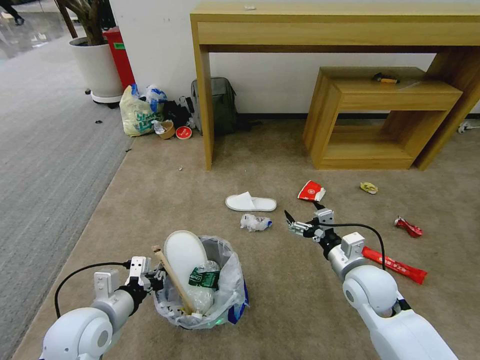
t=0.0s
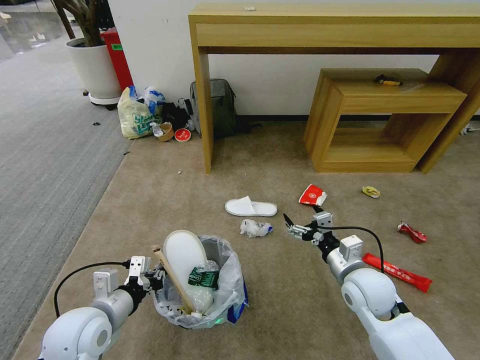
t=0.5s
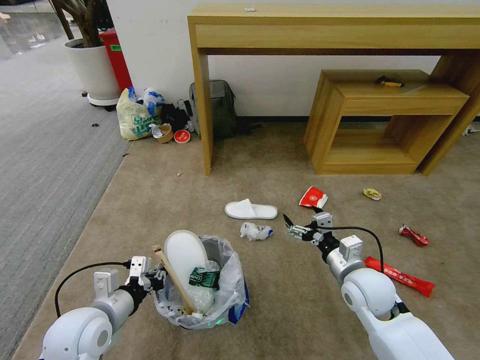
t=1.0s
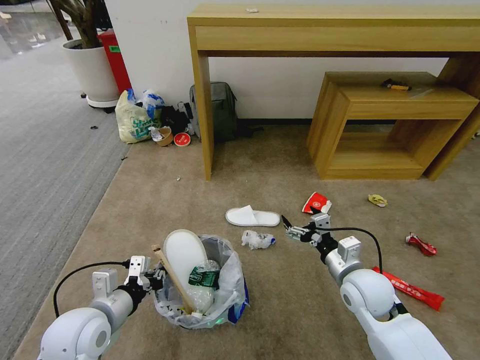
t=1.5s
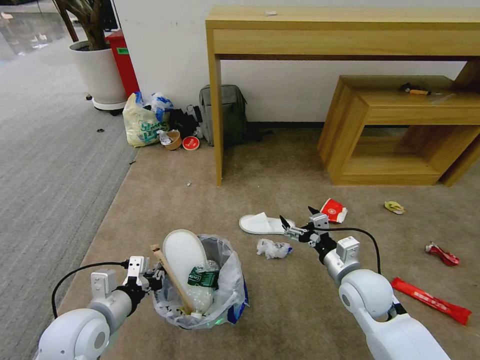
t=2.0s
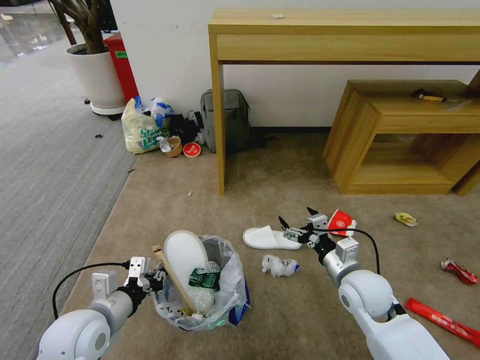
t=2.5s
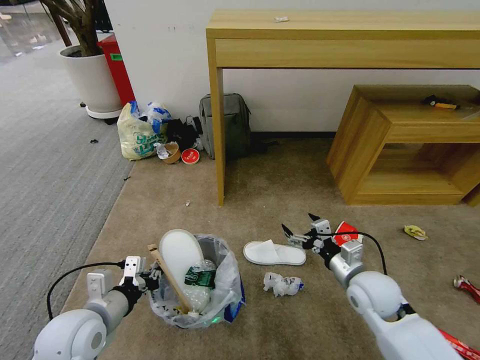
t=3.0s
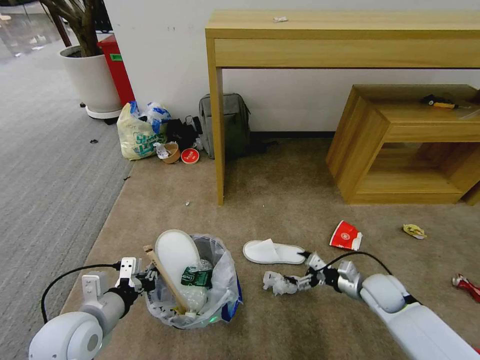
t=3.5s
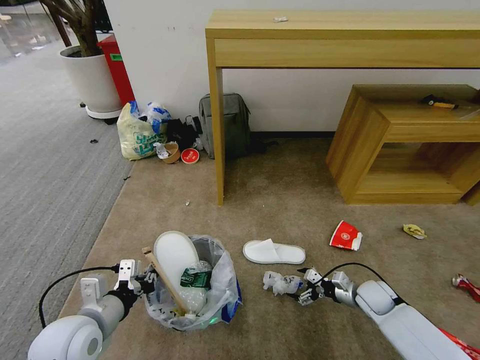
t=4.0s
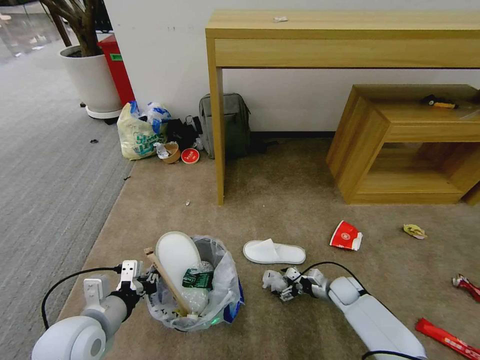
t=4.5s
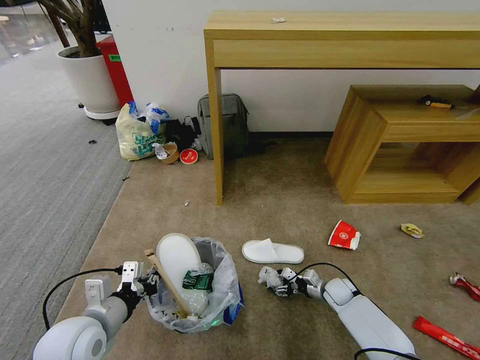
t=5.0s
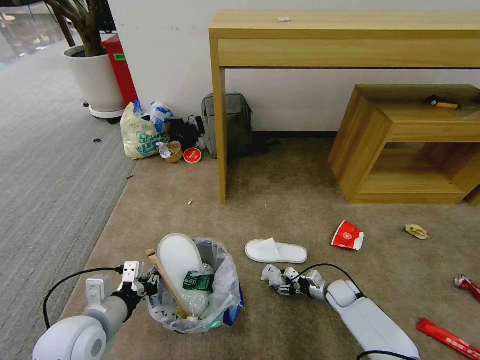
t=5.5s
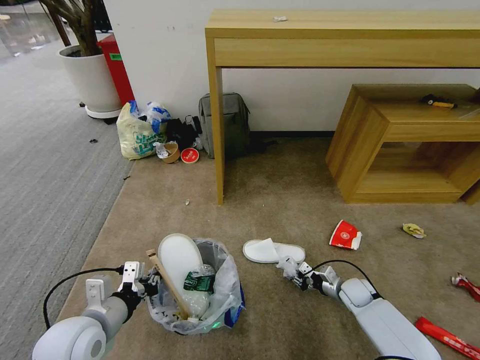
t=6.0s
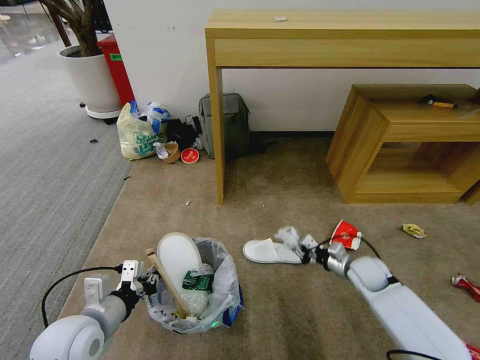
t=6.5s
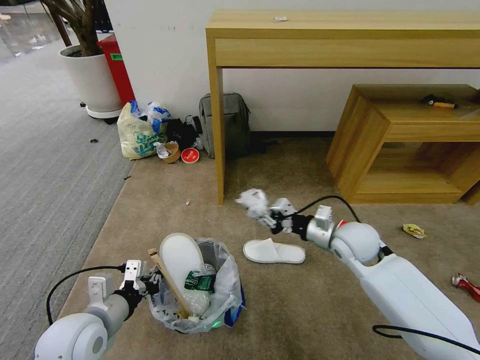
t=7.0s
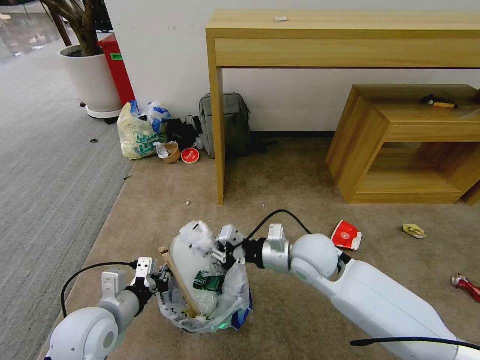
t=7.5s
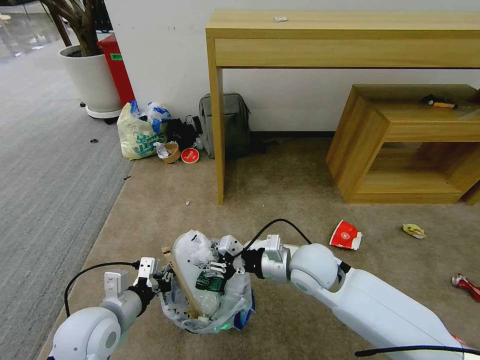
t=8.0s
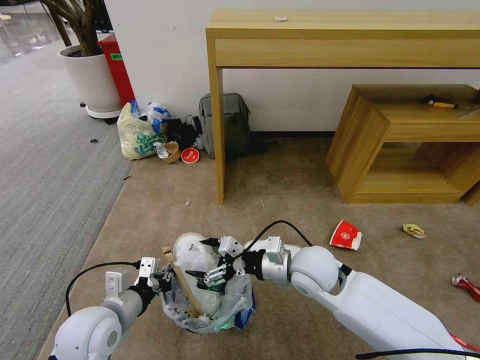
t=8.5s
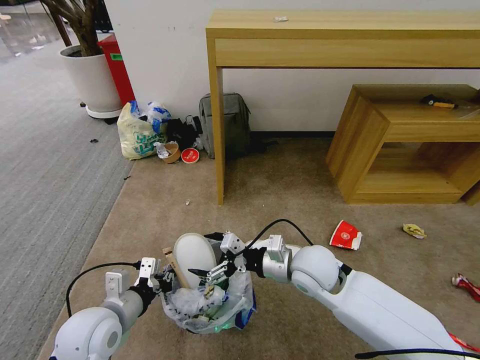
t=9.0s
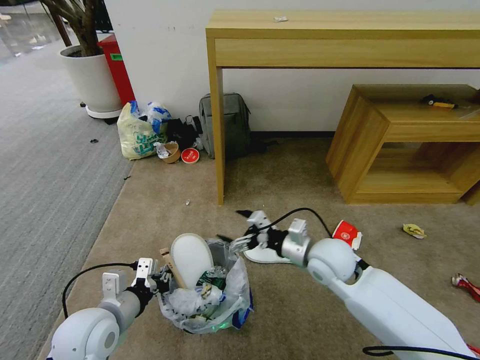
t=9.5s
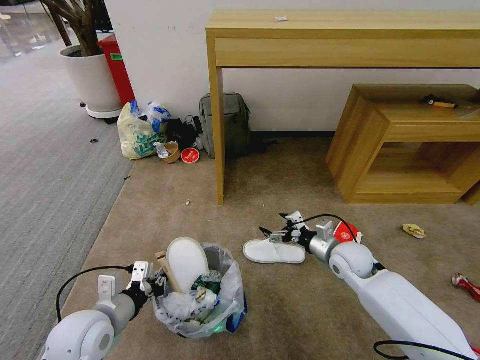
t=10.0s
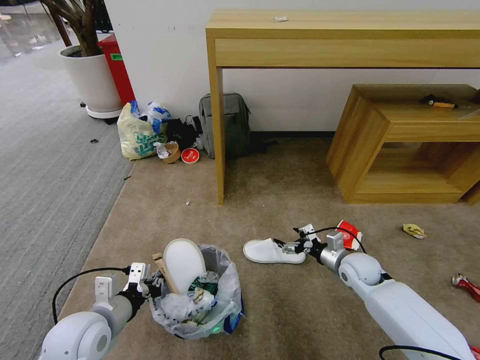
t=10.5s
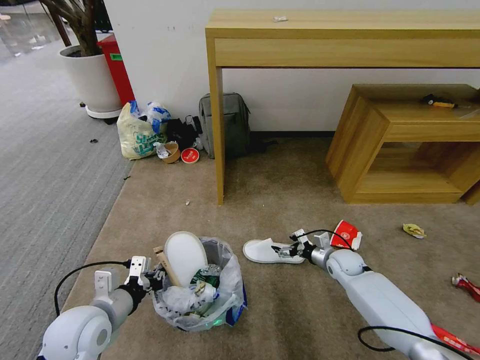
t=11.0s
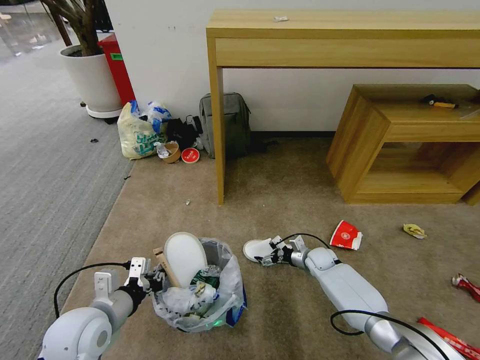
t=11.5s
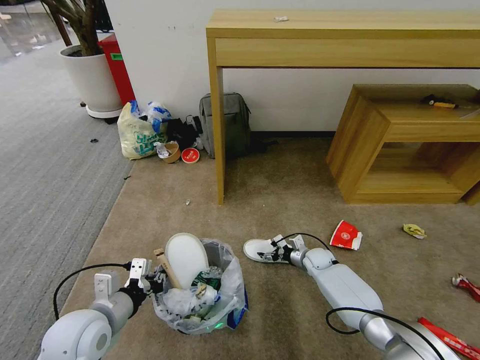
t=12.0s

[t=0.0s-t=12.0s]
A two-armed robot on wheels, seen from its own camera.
Task of the whole recording: Pick up the trash bin and place the garbage on the floor into it.
t=2.0s to t=4.0s: The right gripper moves downward and to the right, some 20 cm.
t=4.0s to t=6.0s: The right gripper closes up.
t=6.0s to t=8.0s: The right gripper goes some 35 cm upward and to the left.
t=8.0s to t=10.0s: The right gripper goes roughly 15 cm to the right, downward and forward, and opens its fingers.
t=10.0s to t=12.0s: The right gripper travels downward and forward by roughly 20 cm.

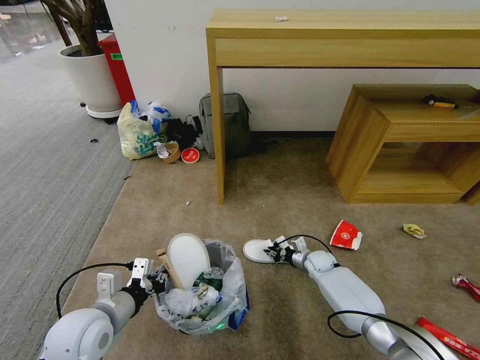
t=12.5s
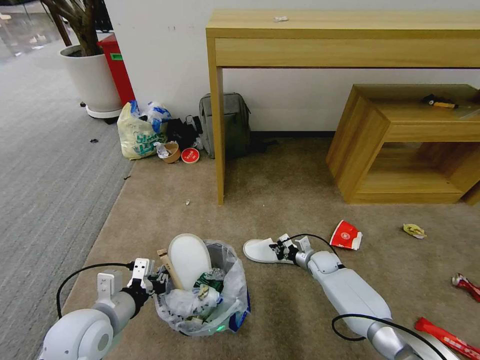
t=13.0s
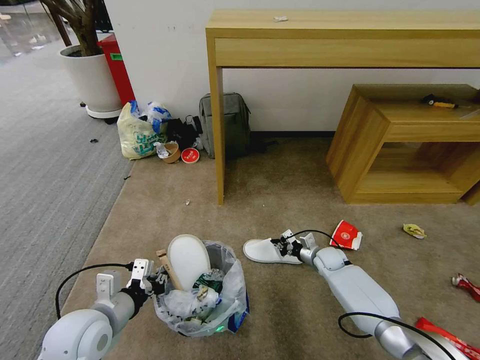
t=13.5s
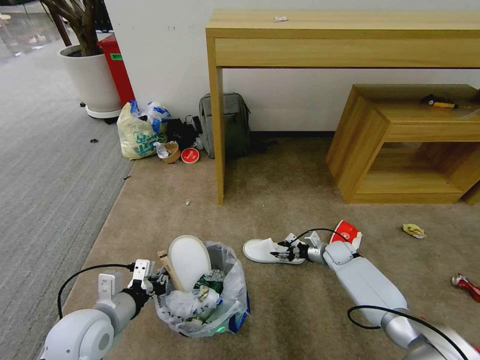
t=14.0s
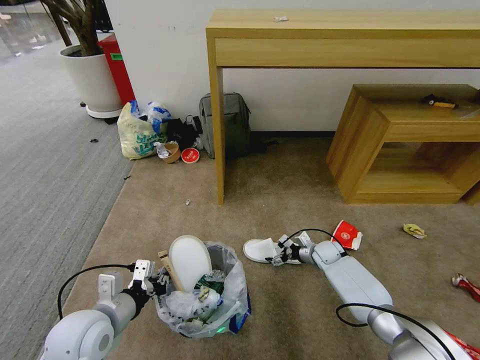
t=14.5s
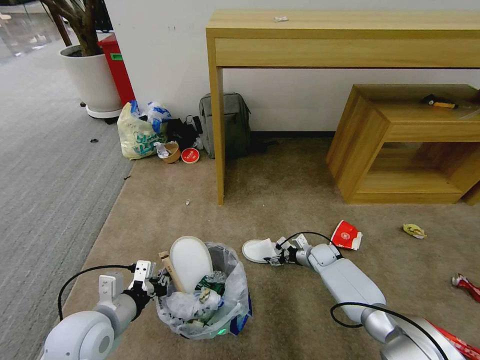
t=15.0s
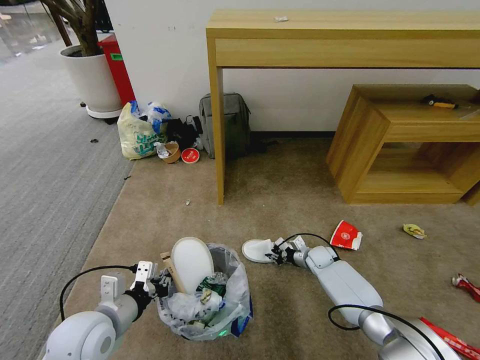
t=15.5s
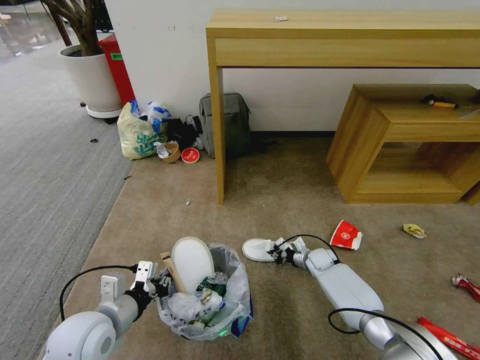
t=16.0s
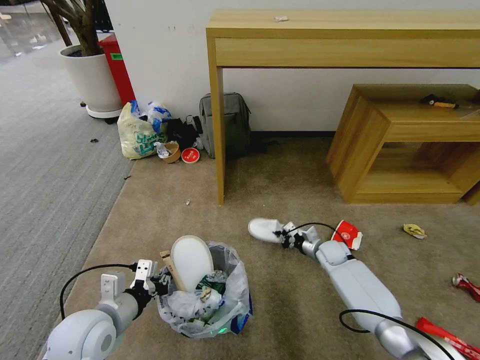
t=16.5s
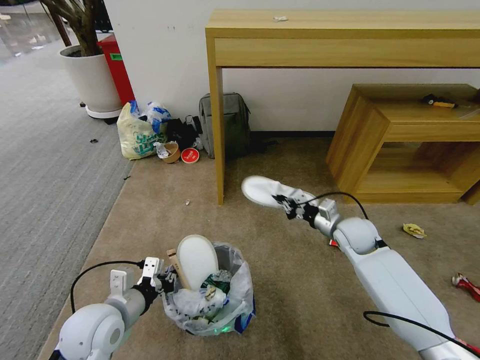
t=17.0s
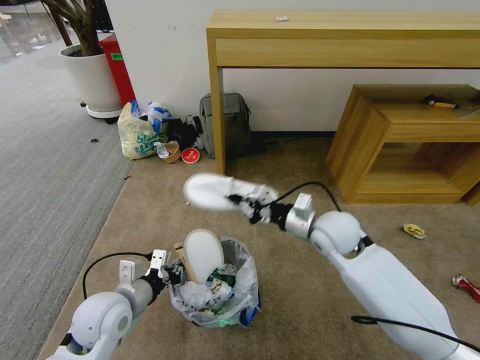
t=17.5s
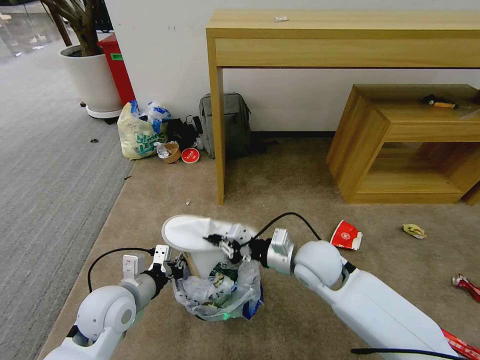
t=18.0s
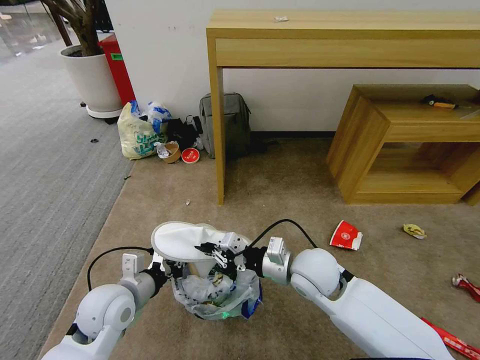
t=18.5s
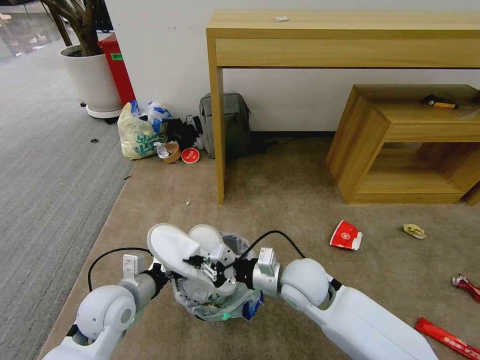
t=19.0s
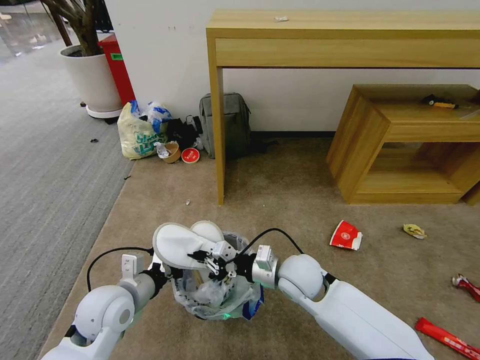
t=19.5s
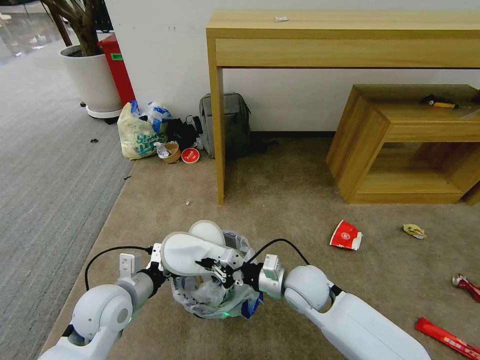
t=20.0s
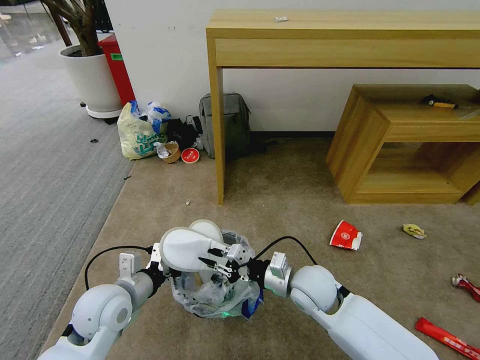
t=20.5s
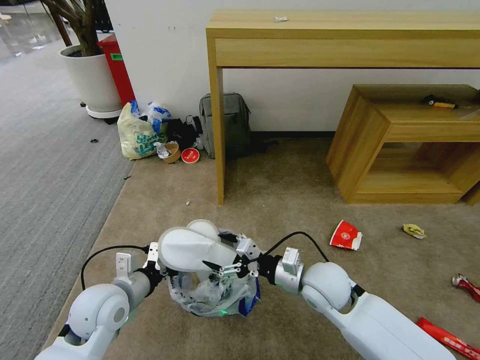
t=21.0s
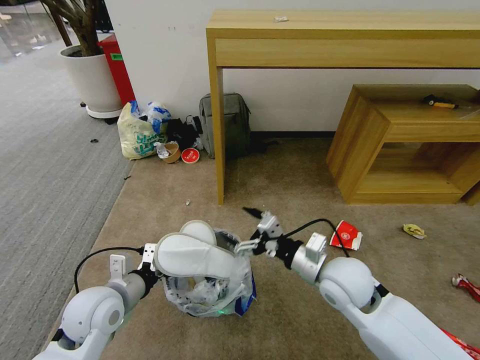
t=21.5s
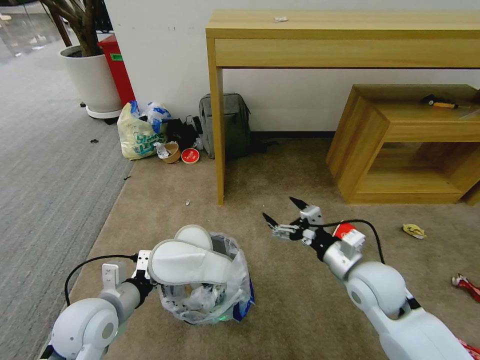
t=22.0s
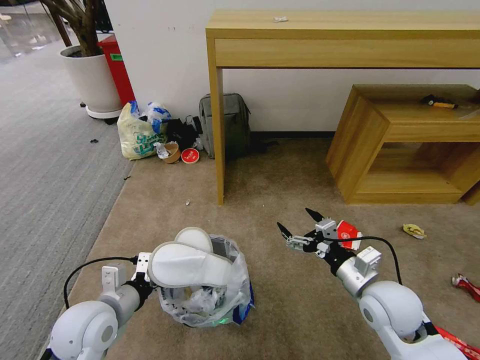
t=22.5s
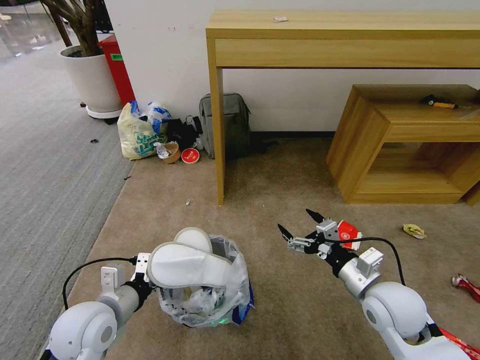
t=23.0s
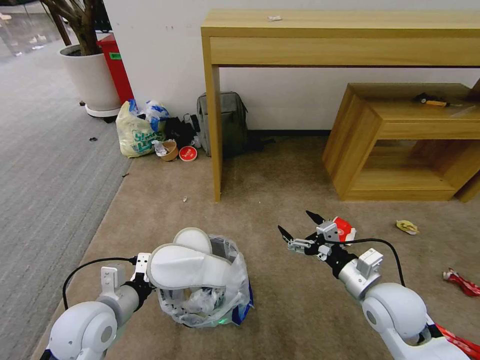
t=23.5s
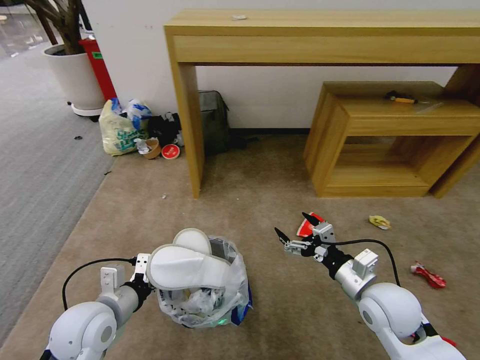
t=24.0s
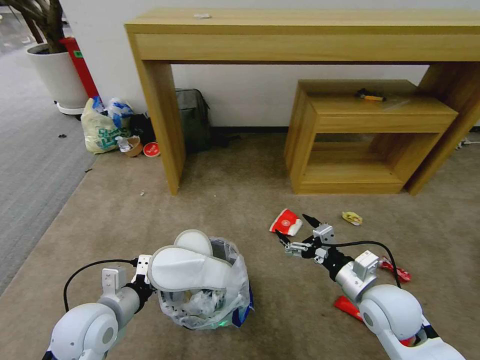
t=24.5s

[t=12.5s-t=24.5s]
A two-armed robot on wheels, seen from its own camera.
Task of the whole recording: Pick up the trash bin and place the garbage on the floor into it.
t=12.5s to t=14.5s: The right gripper opens.
t=14.5s to t=16.5s: The right gripper closes up.
t=16.5s to t=18.5s: The left gripper goes about 5 cm forward. Meanwhile the right gripper goes about 30 cm upward, backward and to the left.
t=18.5s to t=20.5s: The right gripper moves downward, roughly 5 cm.
t=20.5s to t=22.5s: The right gripper is displaced to the right by about 15 cm, and opens.

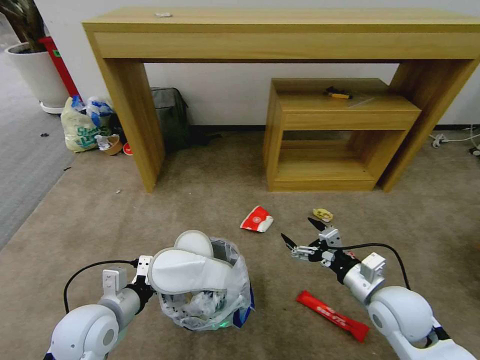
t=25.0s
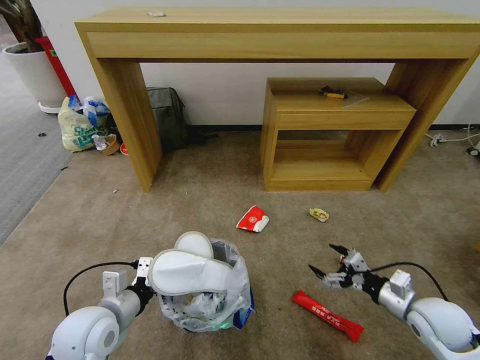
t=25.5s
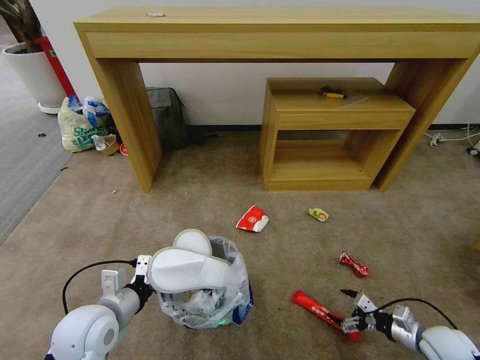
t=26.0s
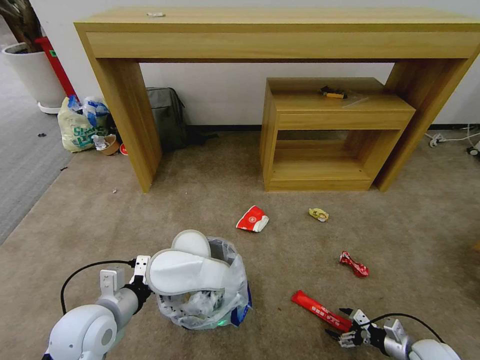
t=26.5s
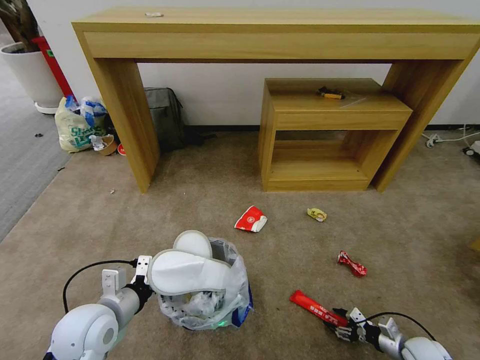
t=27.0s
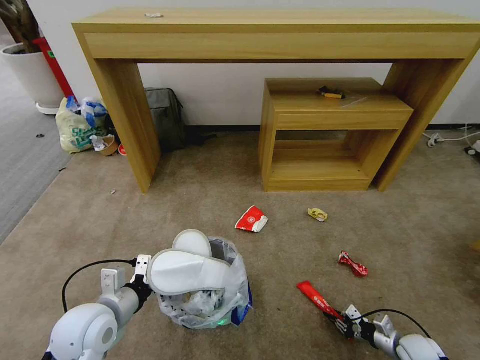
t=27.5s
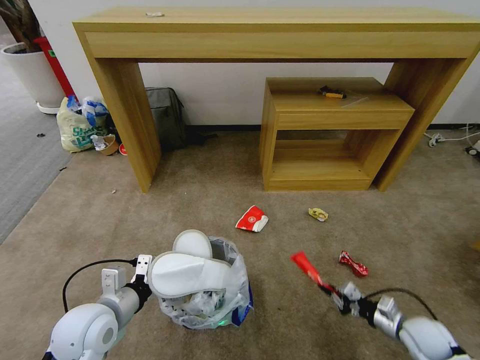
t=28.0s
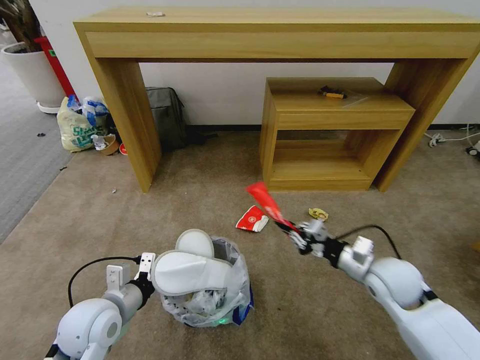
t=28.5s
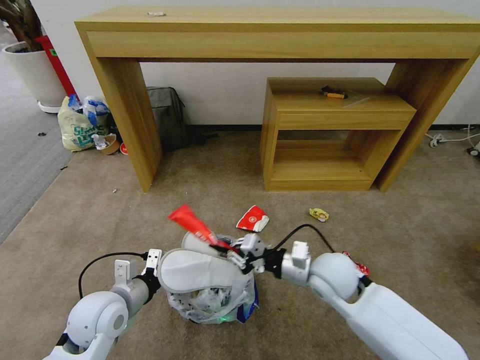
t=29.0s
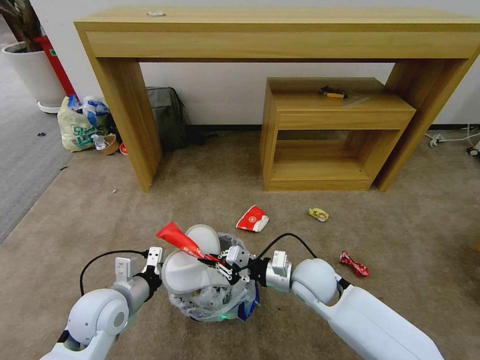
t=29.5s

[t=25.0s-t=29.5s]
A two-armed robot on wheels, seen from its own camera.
Task of the whole recording: Pick up the trash bin and place the garbage on the floor into it.
t=25.0s to t=27.0s: The right gripper travels downward and to the right by about 30 cm, and closes.
t=27.0s to t=29.5s: The right gripper goes approximately 40 cm to the left and upward, and closes.
